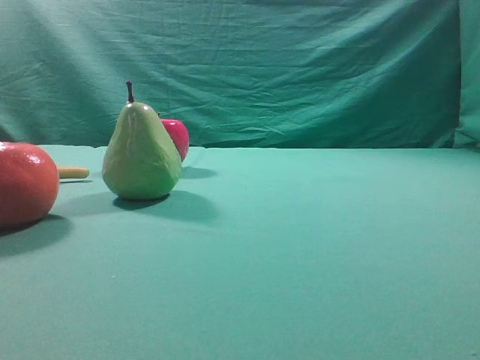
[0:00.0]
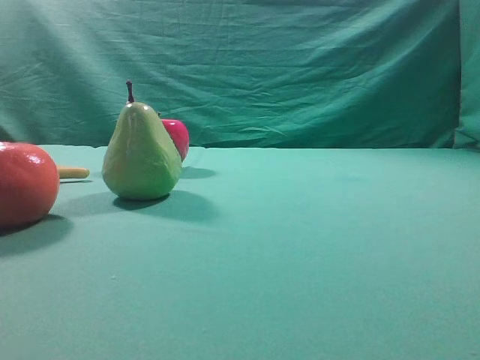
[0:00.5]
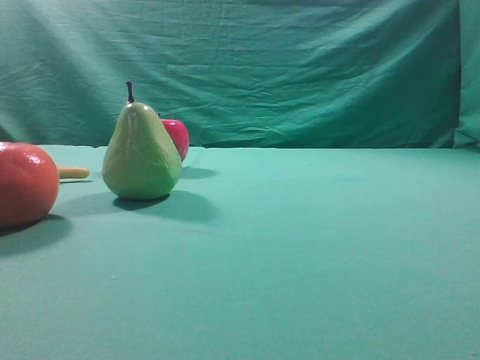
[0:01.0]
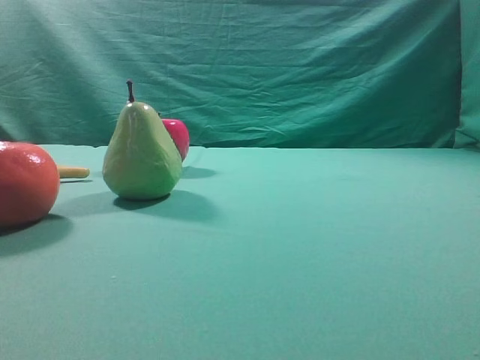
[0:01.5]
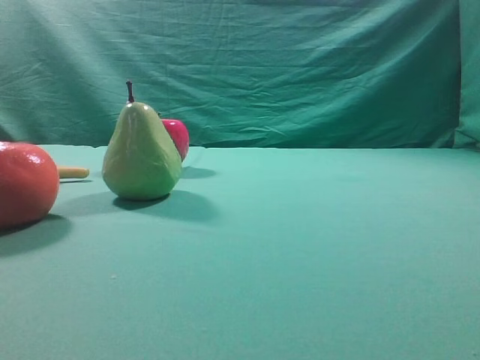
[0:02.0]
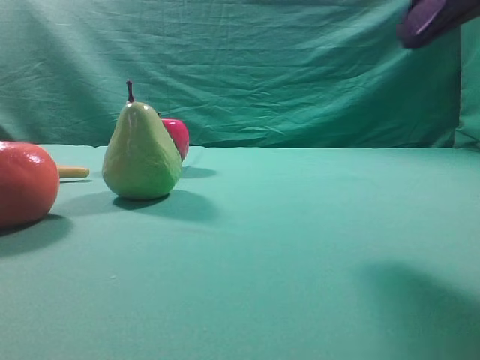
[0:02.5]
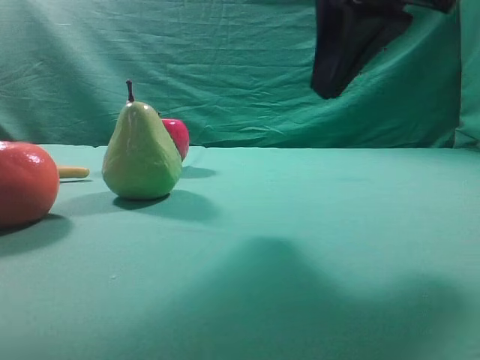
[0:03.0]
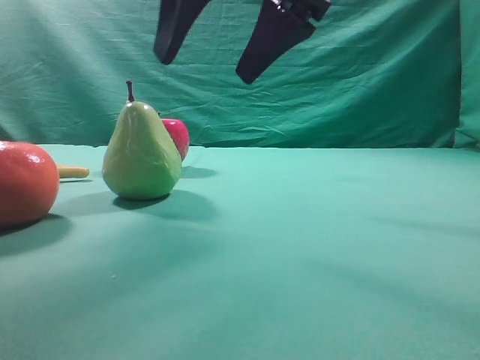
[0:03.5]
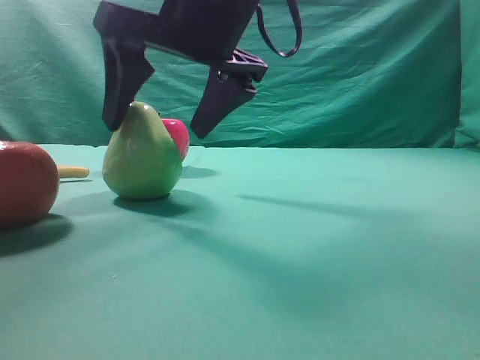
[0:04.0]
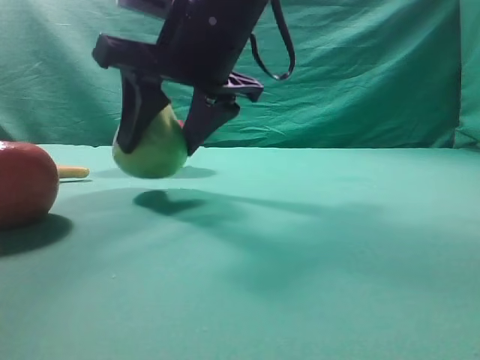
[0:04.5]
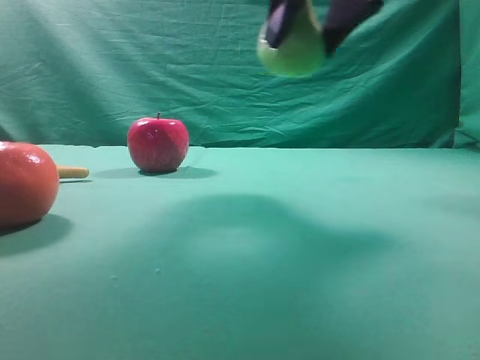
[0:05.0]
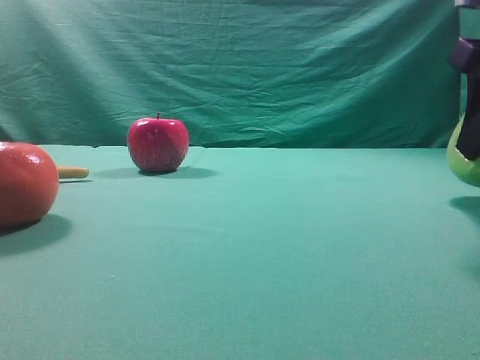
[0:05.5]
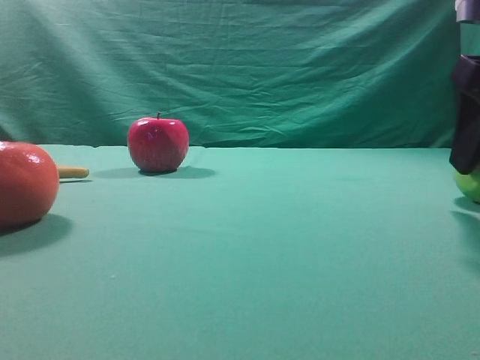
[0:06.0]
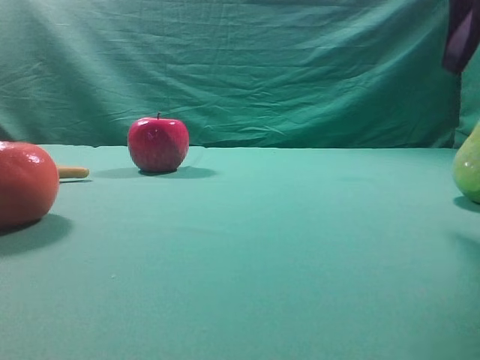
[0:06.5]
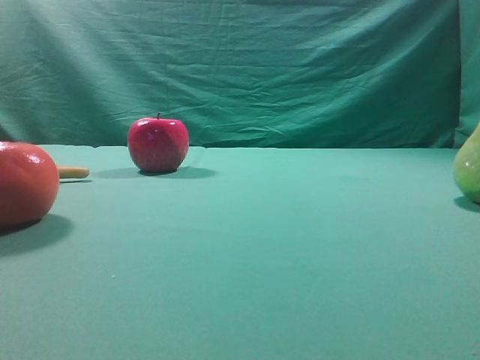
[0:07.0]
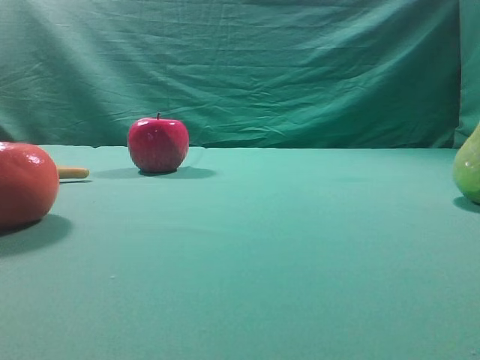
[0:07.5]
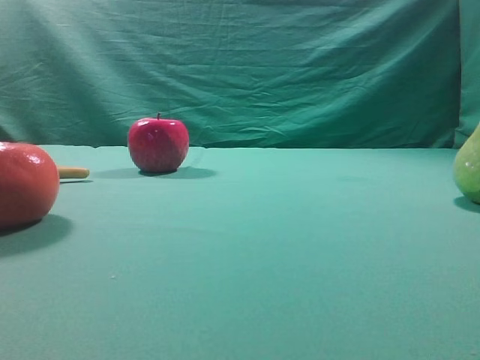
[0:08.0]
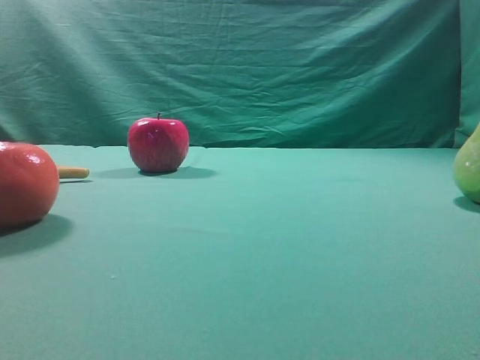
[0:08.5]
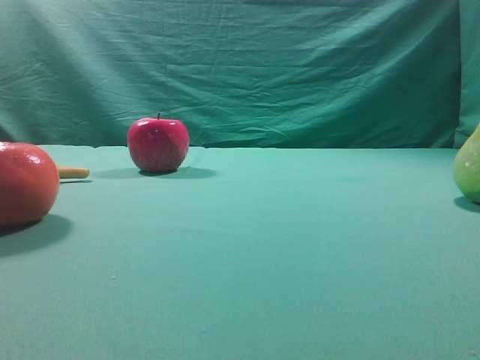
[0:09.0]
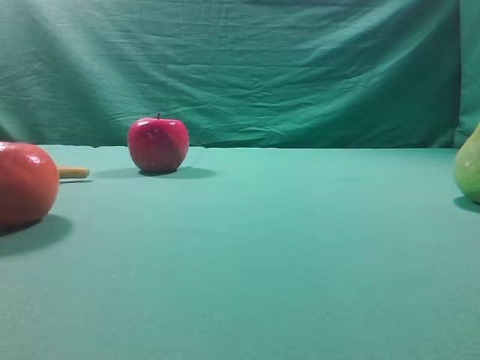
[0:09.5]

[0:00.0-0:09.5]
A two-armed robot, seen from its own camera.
Task of the whole recording: Grasp the pear and place it on one side of the table.
Step, 0:00.0 to 0:04.5: Grasp the high-fiber fruit.
Step, 0:05.0 to 0:06.0: Place it on the right side of the table.
